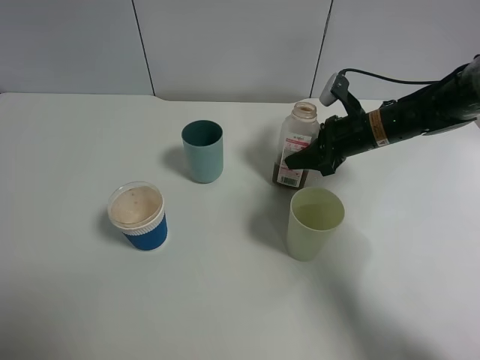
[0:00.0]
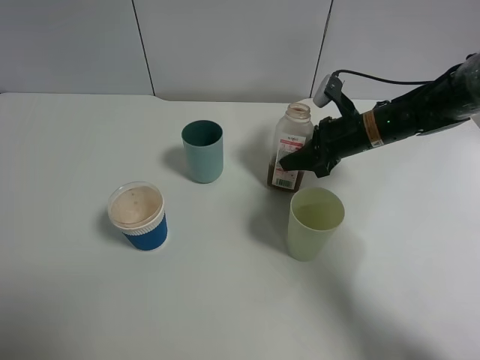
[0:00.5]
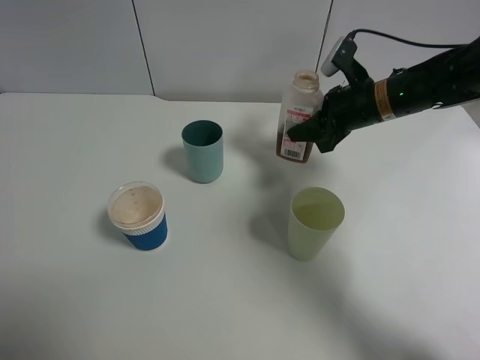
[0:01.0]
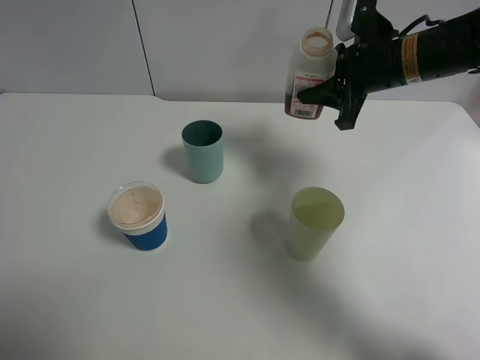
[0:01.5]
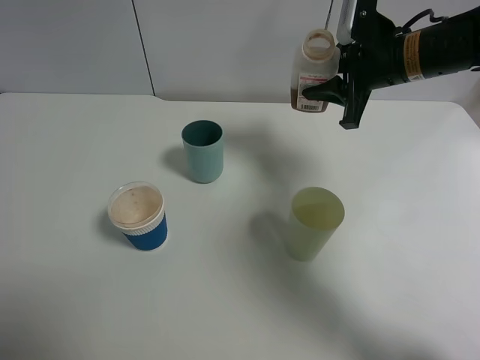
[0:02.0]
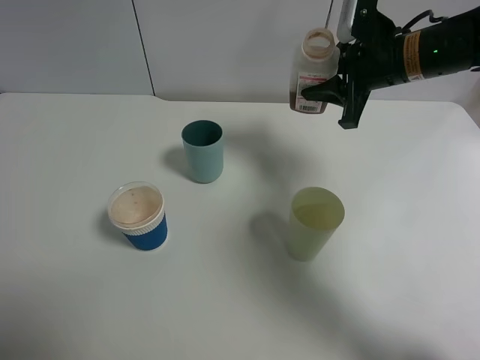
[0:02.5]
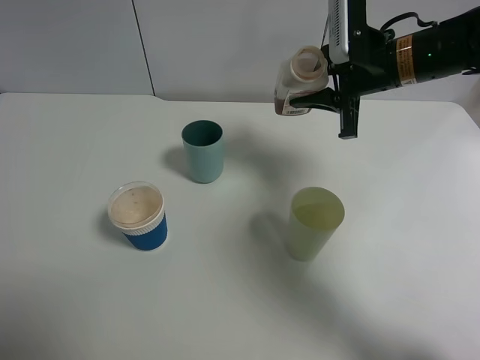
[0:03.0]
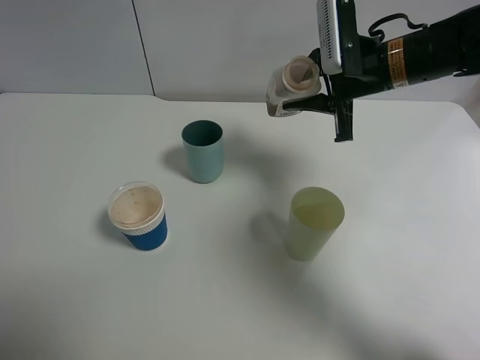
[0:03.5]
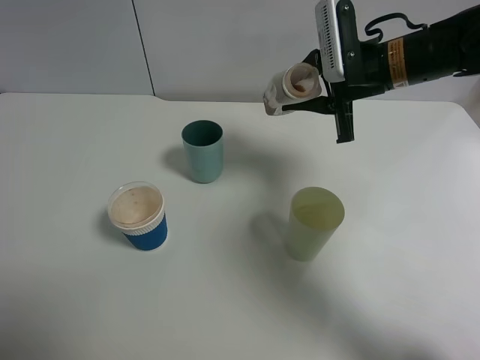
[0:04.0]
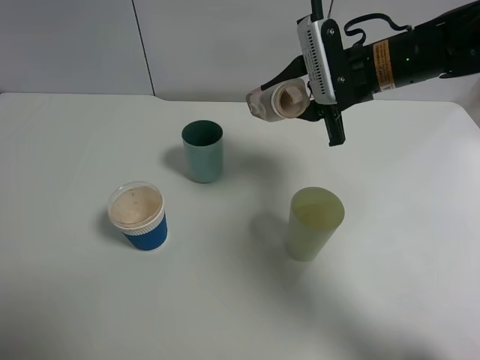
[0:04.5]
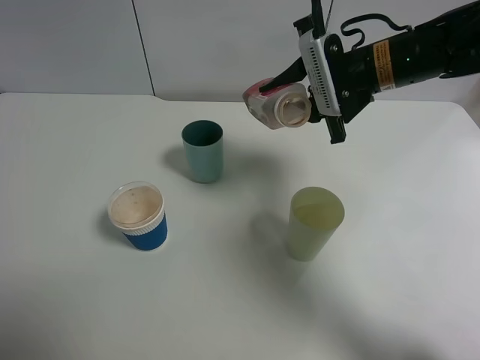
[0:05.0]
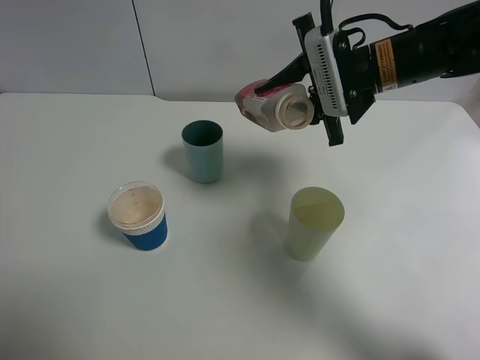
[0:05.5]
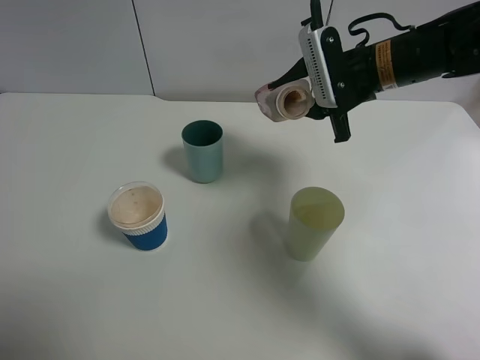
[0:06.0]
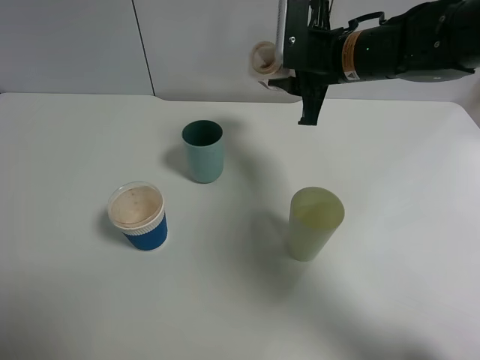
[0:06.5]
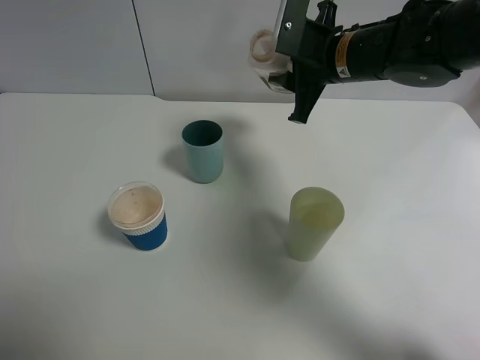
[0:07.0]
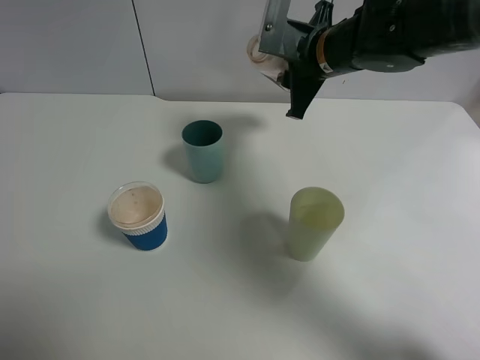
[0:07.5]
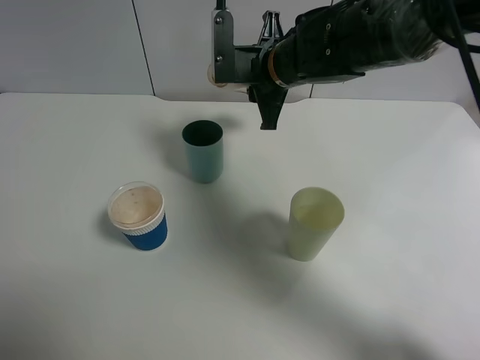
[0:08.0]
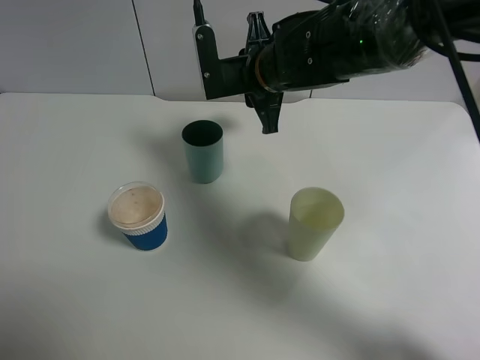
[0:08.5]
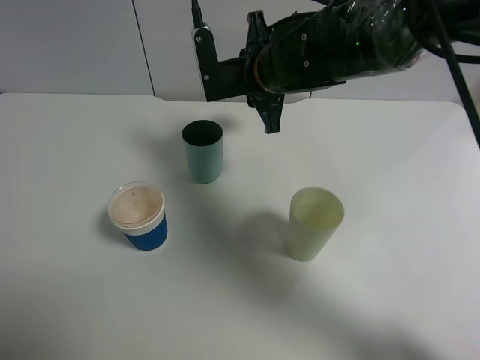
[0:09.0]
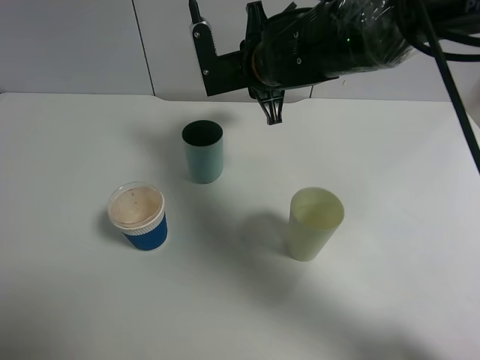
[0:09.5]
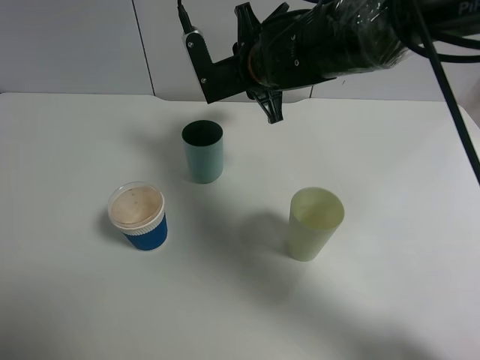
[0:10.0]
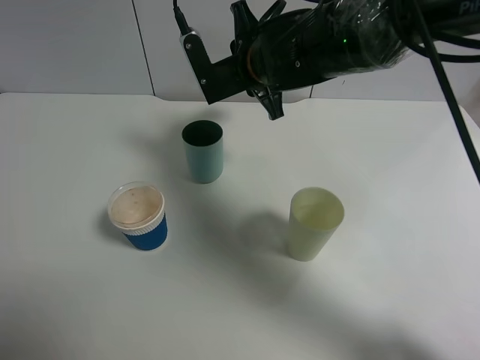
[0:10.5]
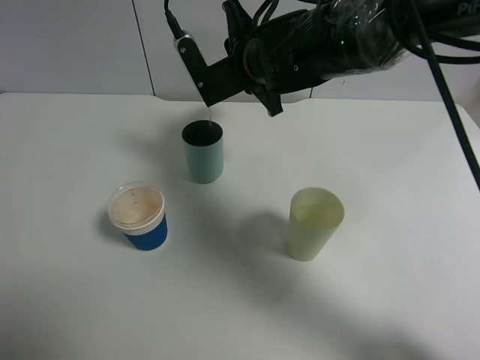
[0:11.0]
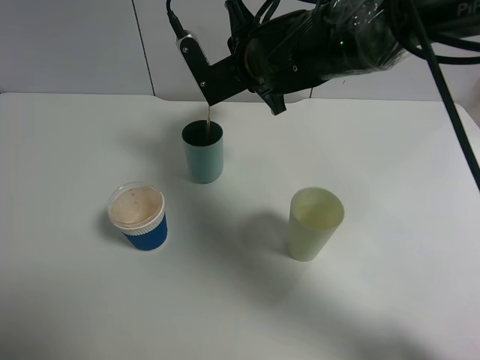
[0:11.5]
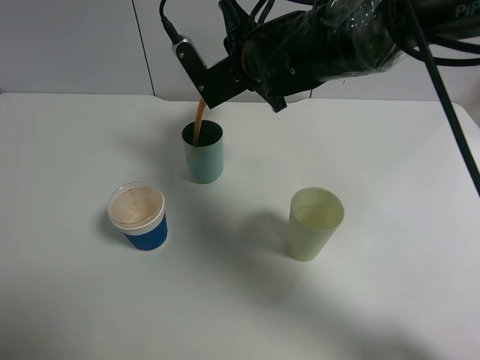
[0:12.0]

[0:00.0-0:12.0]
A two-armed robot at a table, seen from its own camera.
Task of the whole recording: use a gripper to hold the bottle of the drink and pour it into a random cup.
0:00.0 to 0:02.0: The right gripper travels upward by about 10 cm.
0:06.0 to 0:08.0: The right gripper travels to the left by some 10 cm.
0:10.0 to 0:12.0: The grippers make only small movements.

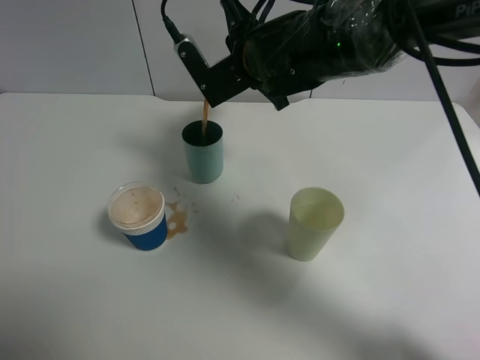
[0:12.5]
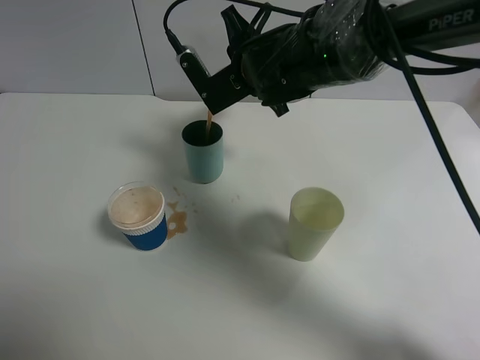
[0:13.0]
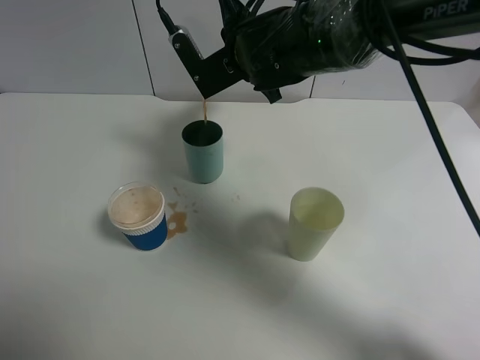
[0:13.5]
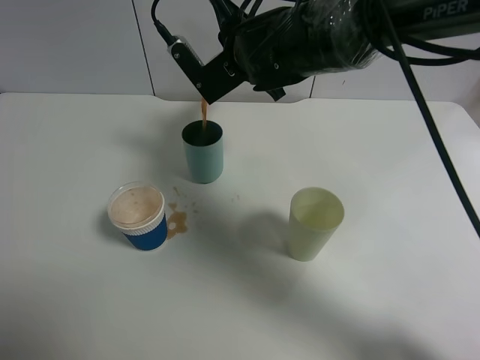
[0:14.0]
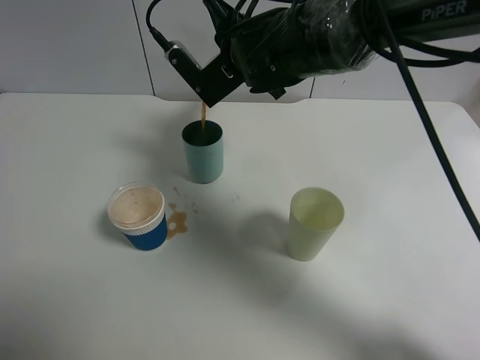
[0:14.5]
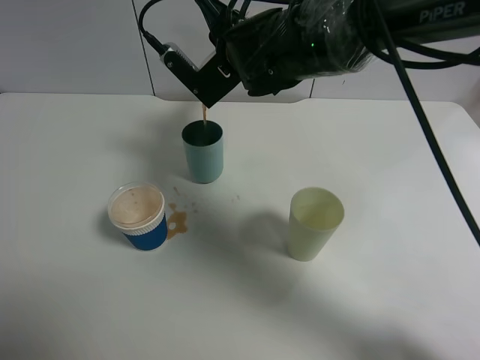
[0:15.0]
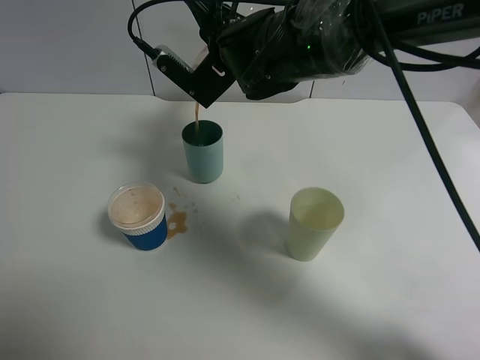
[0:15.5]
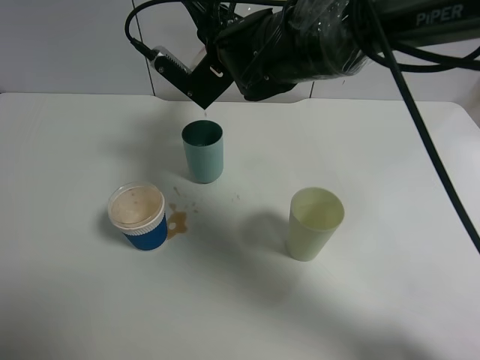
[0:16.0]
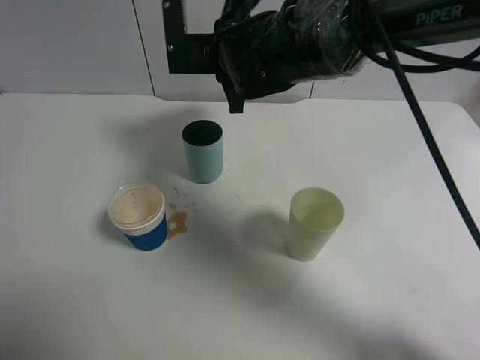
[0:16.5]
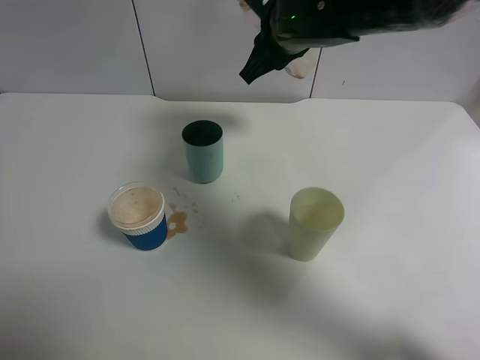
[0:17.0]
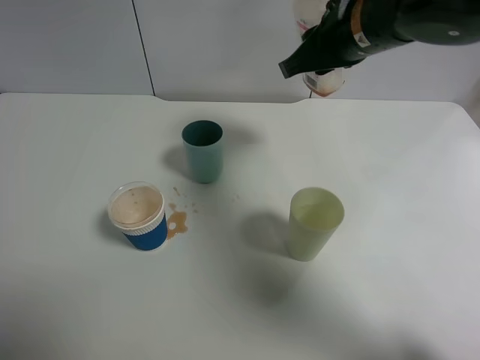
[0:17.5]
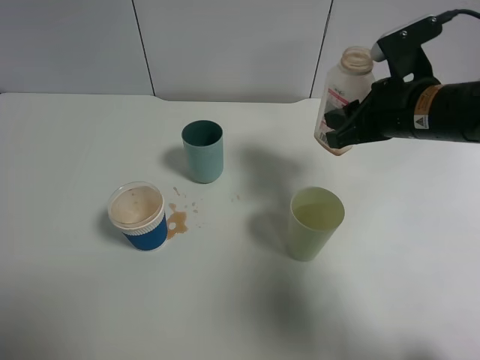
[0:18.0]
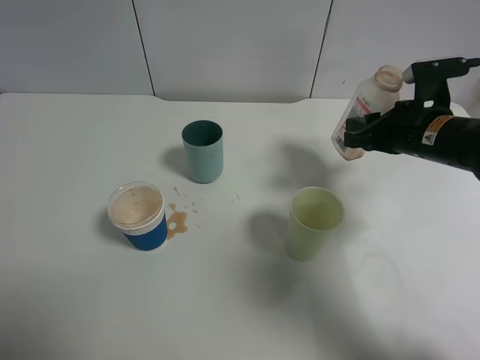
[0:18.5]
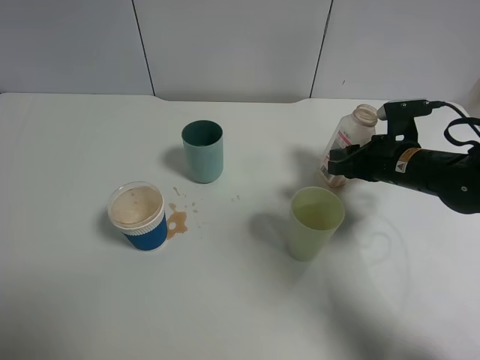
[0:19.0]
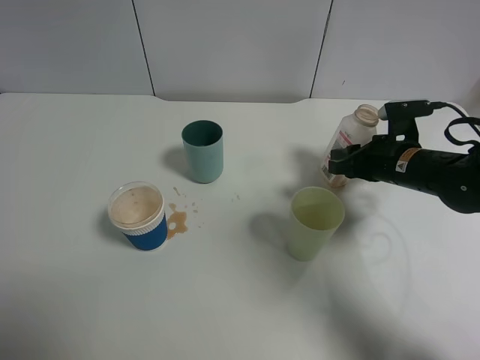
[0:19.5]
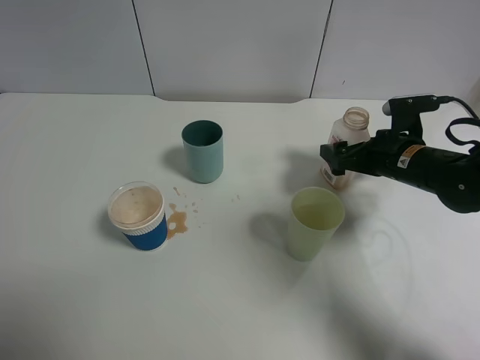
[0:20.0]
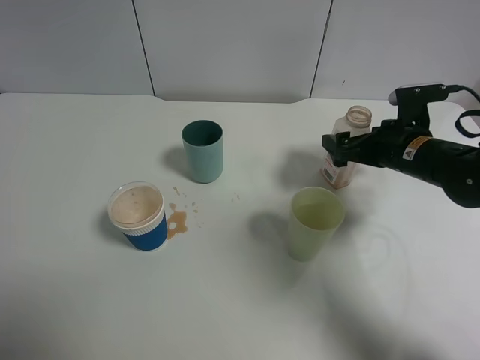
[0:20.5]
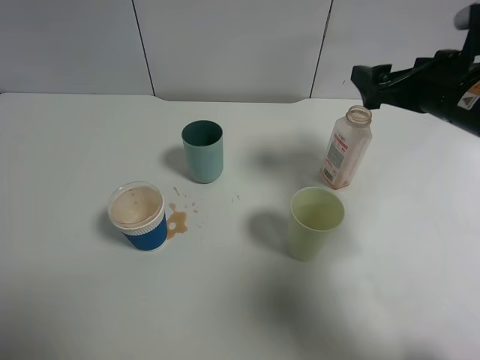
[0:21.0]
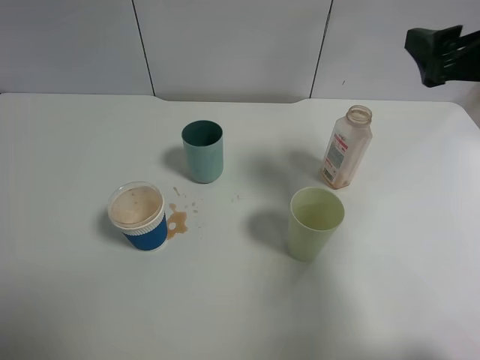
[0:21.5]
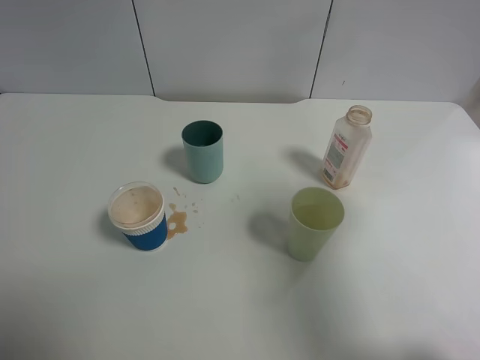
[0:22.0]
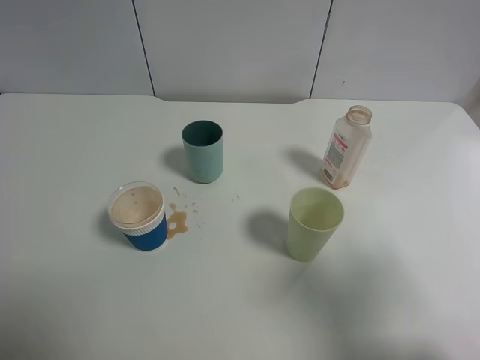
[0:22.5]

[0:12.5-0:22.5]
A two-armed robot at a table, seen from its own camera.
Task of the whole recording: use a gripper to hold the bottle of the drink and pour it into a random cup.
Step, 0:12.5 to 0:16.5: Pour the cranberry juice into the cyan cup with the right gripper.
Step, 0:17.0 to 0:20.0: Place the cranberry juice bottle on the table with the right gripper.
0:12.5 to 0:14.5: There are only small adjustments of the grippers.
0:16.5 to 0:18.5: The right gripper moves to the right, some 25 cm.
0:18.5 to 0:20.5: The right gripper opens up.
0:20.5 to 0:22.5: The right gripper goes some 35 cm backward and upward.

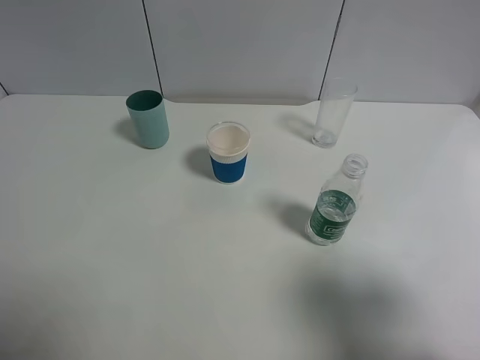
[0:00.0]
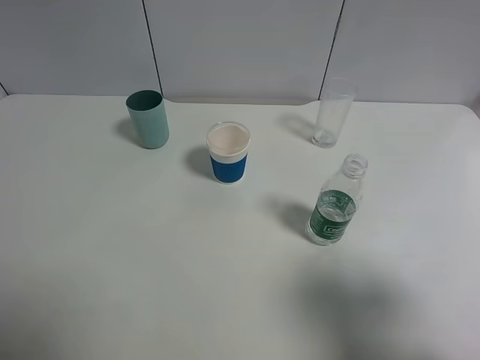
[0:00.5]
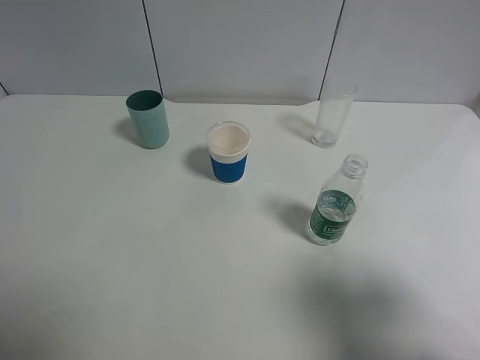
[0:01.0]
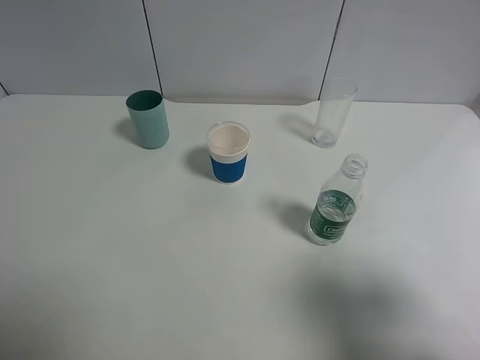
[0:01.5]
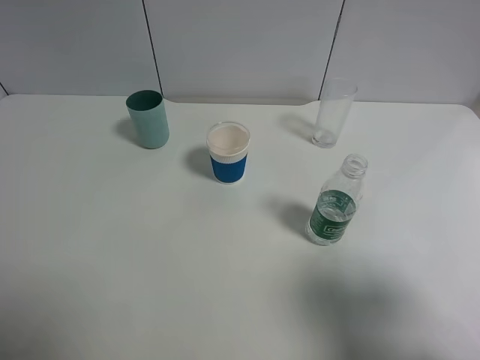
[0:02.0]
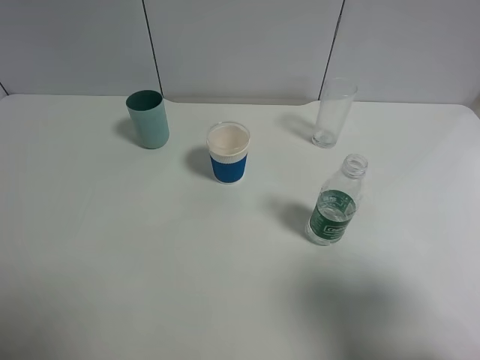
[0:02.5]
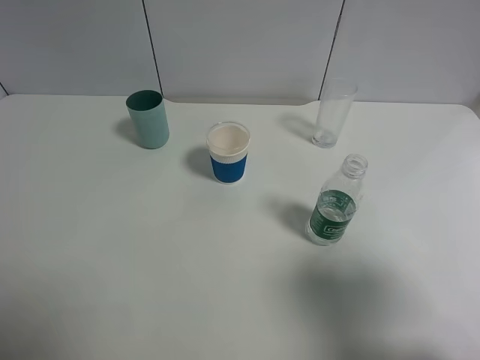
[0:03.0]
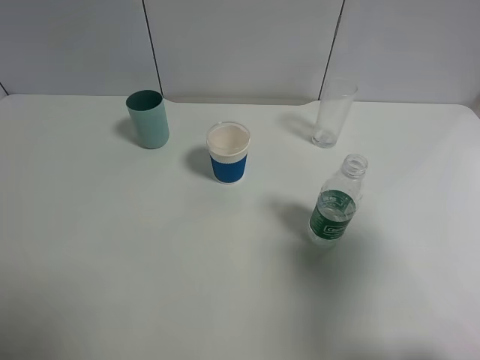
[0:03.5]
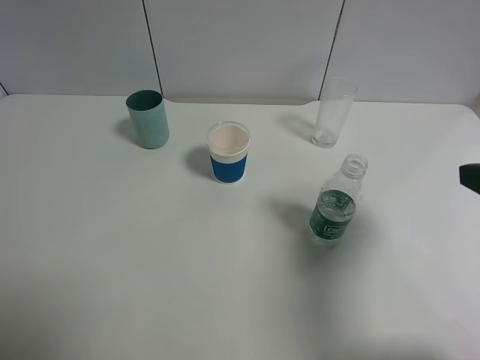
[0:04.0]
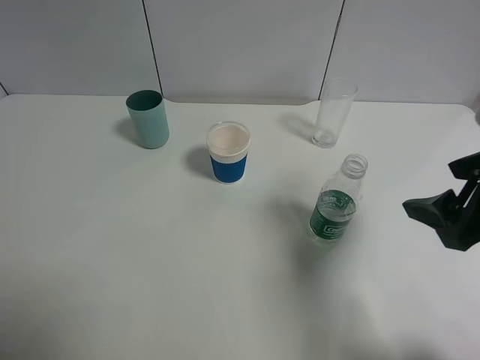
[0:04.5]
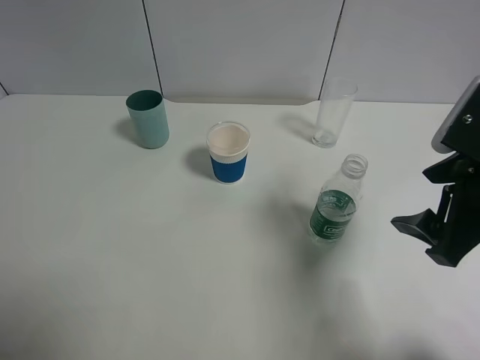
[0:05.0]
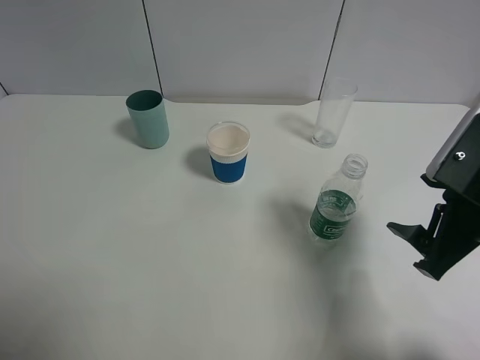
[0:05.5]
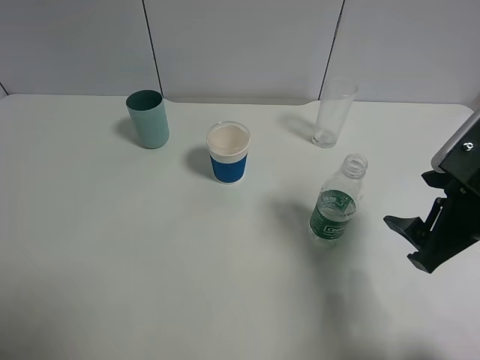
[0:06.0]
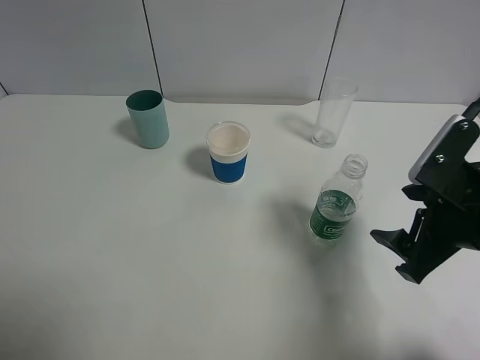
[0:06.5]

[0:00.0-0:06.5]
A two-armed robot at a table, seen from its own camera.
Task of the whole recording: use a gripper to hold the bottle of the drink and pour it into a random cup.
0:00.0 to 0:02.0: Both grippers stay put.
0:02.0 to 0:04.5: The right gripper is displaced forward by approximately 15 cm.
0:04.5 to 0:06.5: The right gripper shifts about 5 cm downward.
